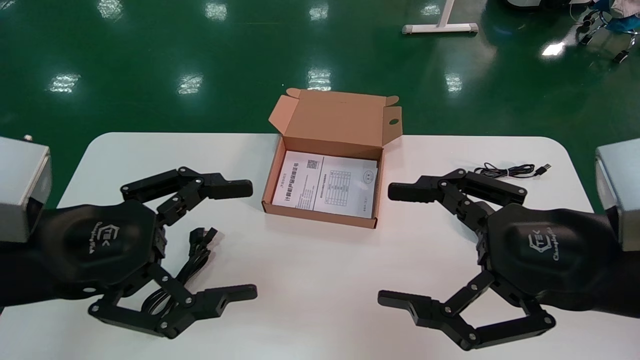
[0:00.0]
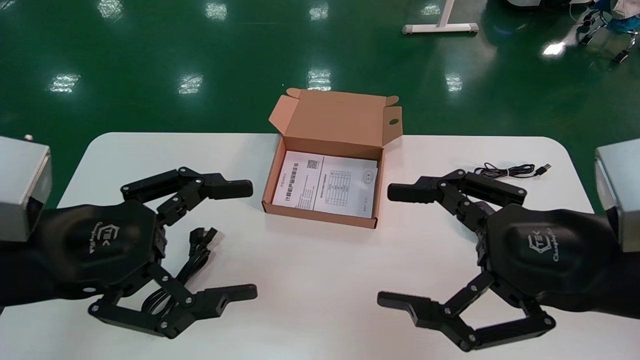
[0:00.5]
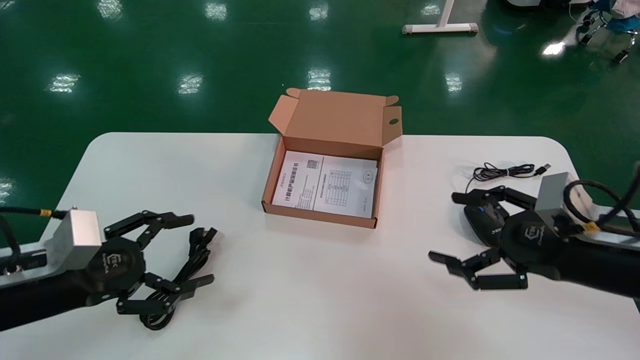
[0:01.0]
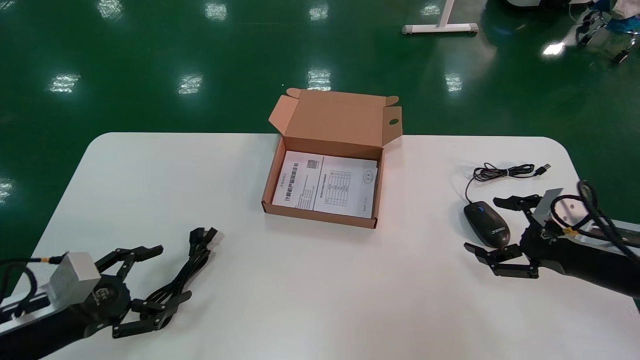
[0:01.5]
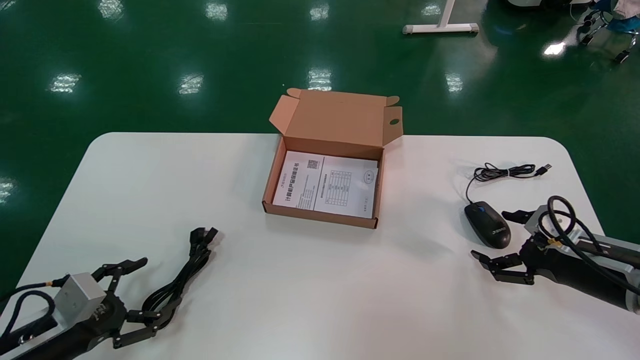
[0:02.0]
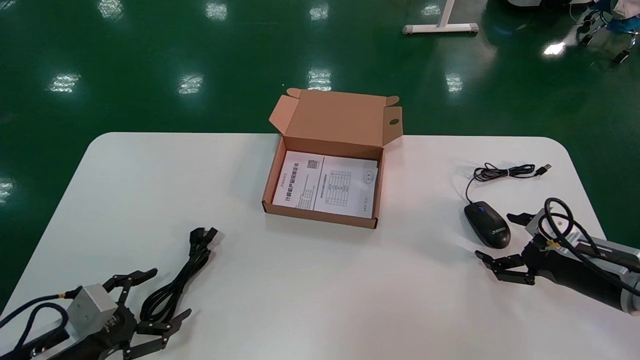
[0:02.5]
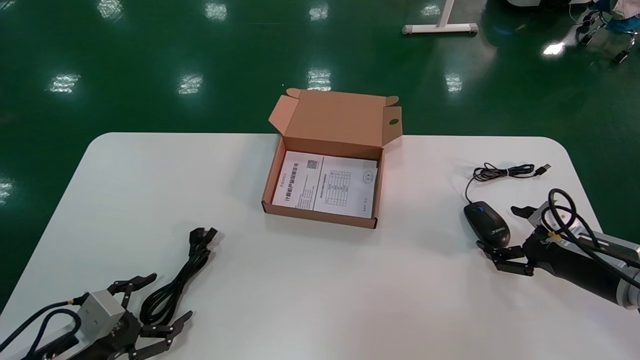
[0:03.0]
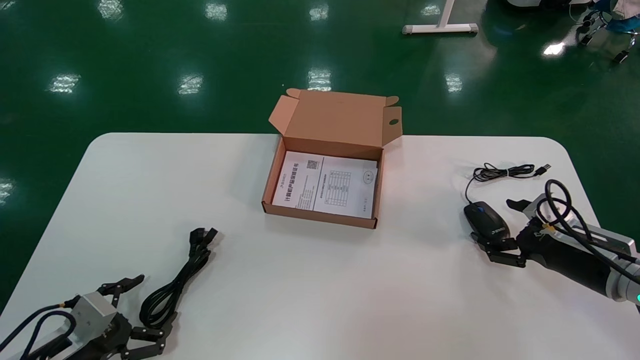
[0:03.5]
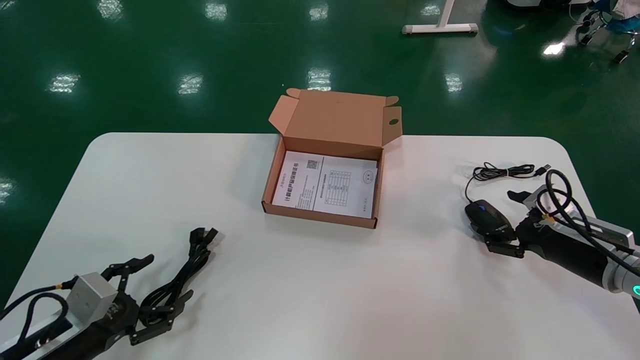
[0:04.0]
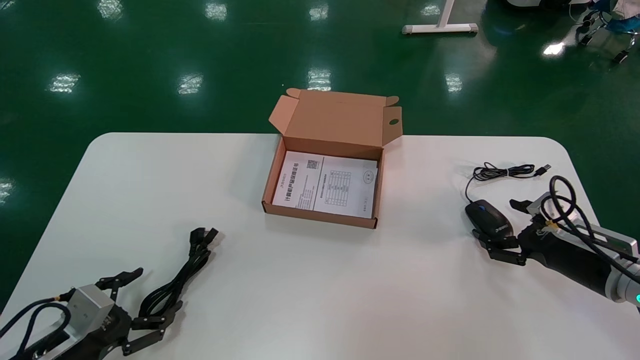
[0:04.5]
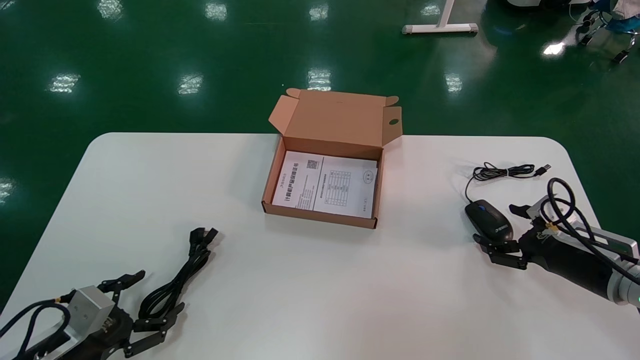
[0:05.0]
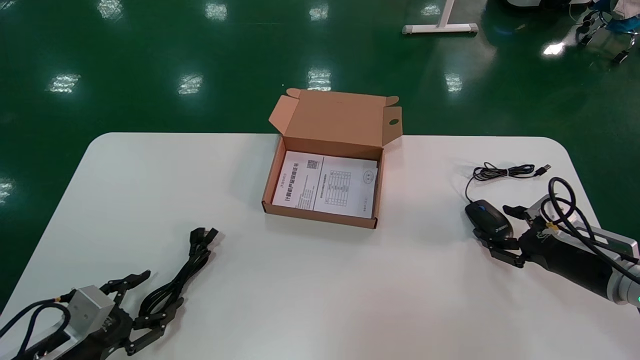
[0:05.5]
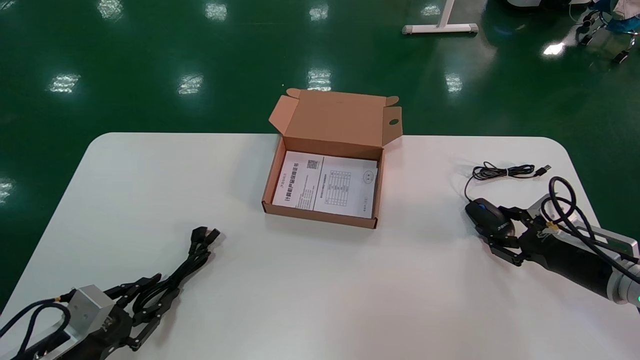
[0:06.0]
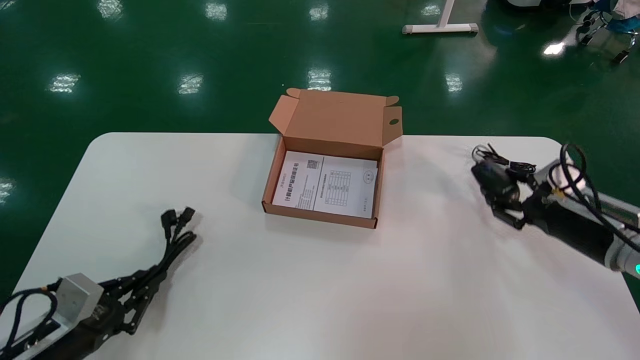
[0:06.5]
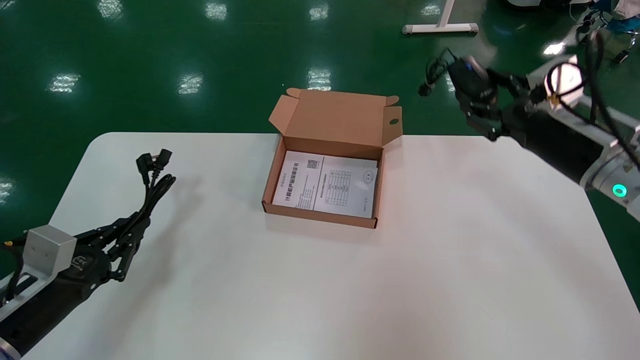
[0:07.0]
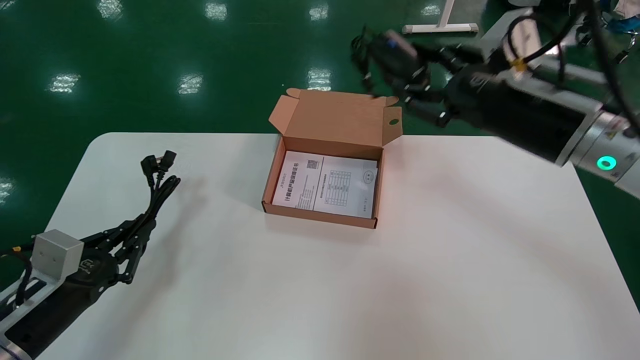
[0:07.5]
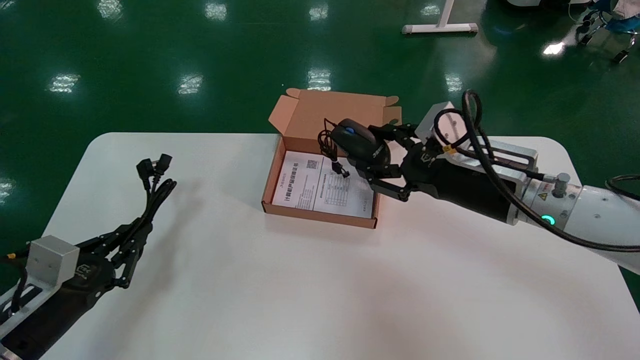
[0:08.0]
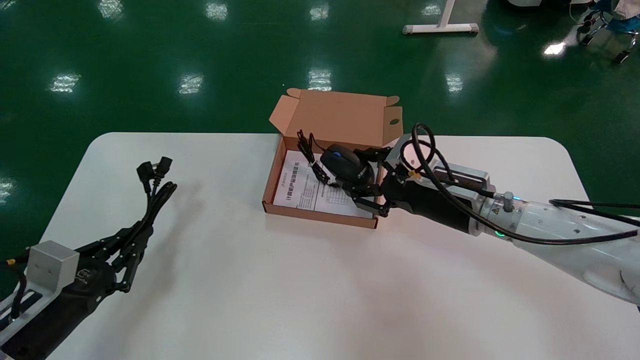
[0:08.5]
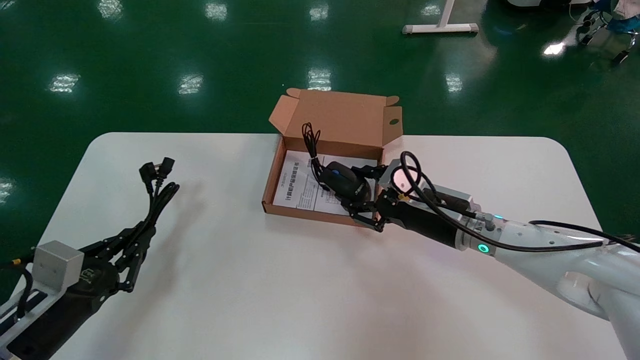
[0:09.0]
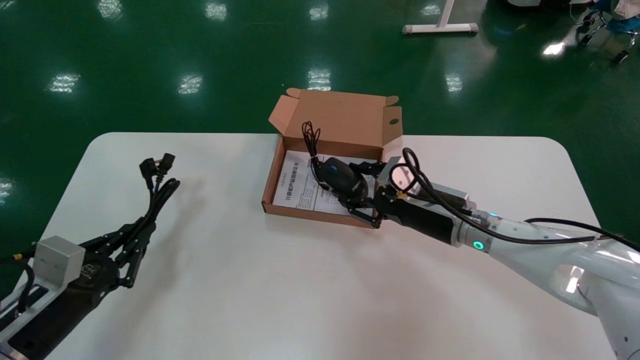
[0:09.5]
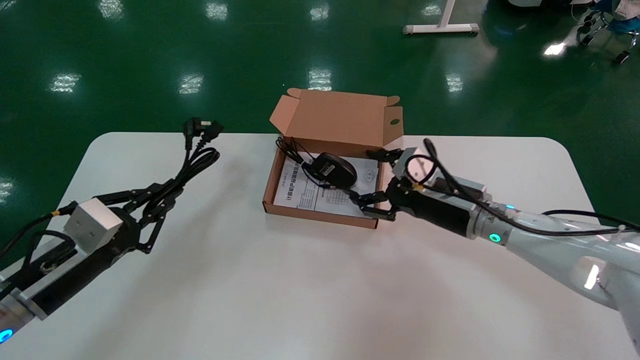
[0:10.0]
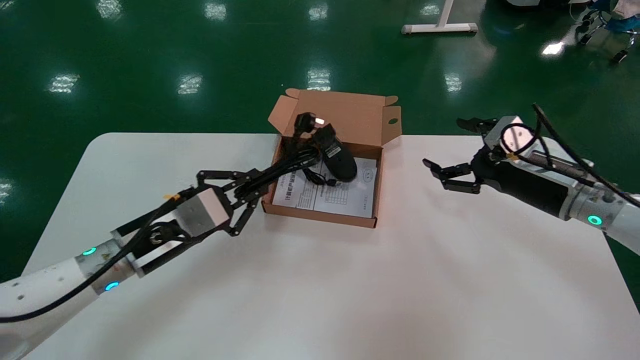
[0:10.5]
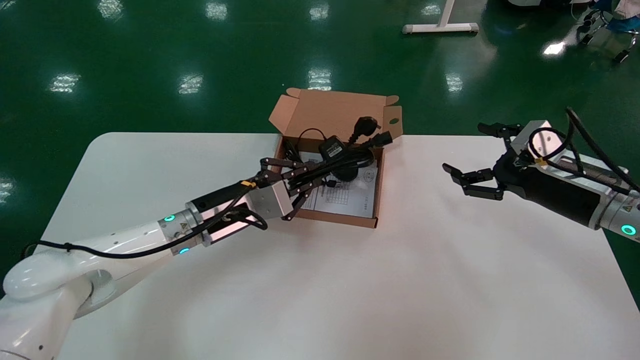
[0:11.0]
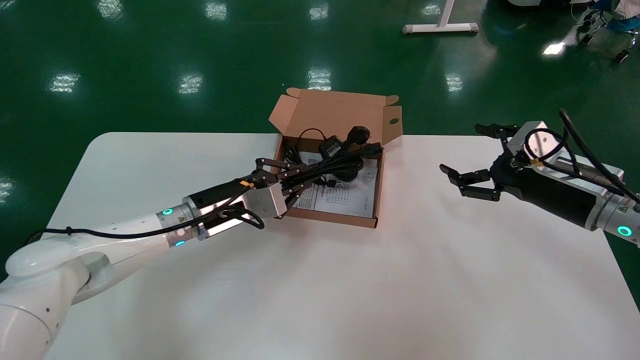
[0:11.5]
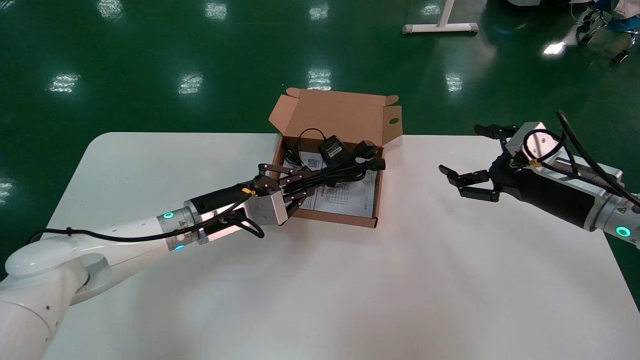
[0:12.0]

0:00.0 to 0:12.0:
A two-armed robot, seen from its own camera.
Step, 0:00.5 to 0:06.5: Grab and pick up the mouse and power cord from the accessory packaging area.
0:00.0 to 0:02.0: The left gripper moves downward and to the left, about 25 cm. Meanwhile the right gripper shifts approximately 25 cm forward, downward and to the right.
0:02.0 to 0:04.0: The grippers stay close to where they were, moving slightly.
0:04.0 to 0:06.0: The right gripper closes up; the left gripper closes up.
0:06.0 to 0:08.0: The right gripper moves to the left and upward, some 25 cm, while the left gripper moves upward, about 5 cm, and closes.
0:08.0 to 0:10.0: The right gripper heads forward and downward, covering approximately 10 cm, and opens; the left gripper is displaced upward by approximately 5 cm.
0:10.0 to 0:12.0: The right gripper travels to the right by roughly 15 cm, and opens, while the left gripper shifts about 20 cm to the right and forward.

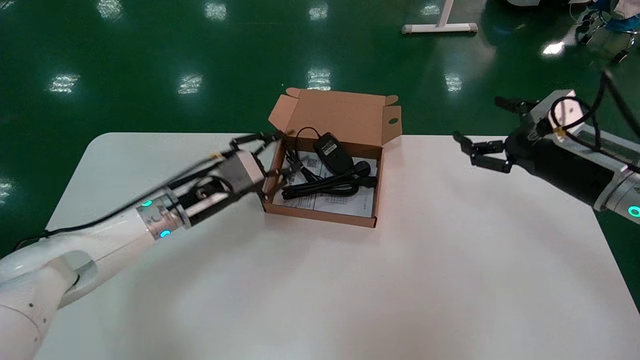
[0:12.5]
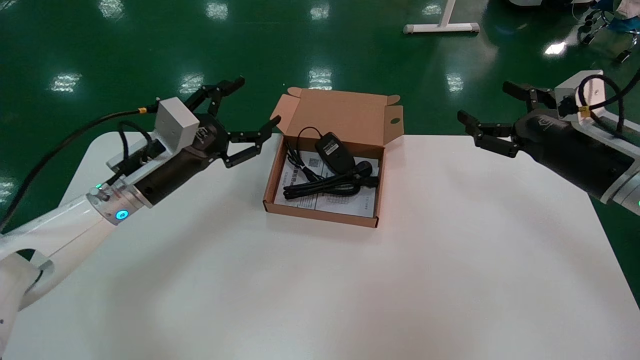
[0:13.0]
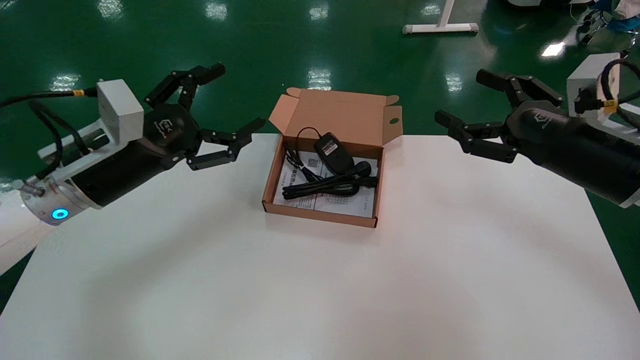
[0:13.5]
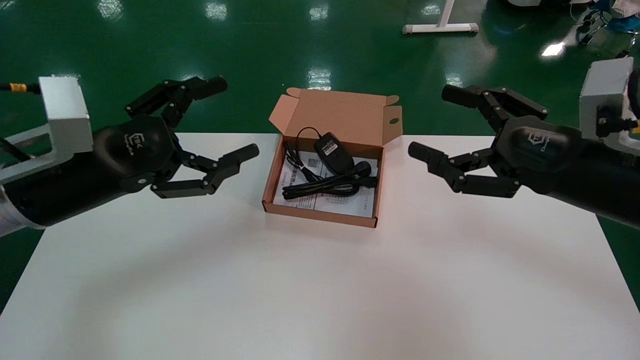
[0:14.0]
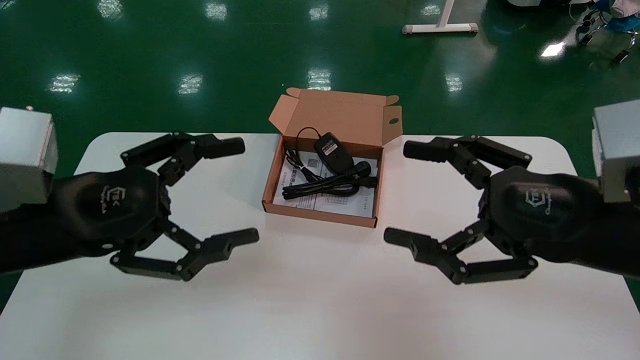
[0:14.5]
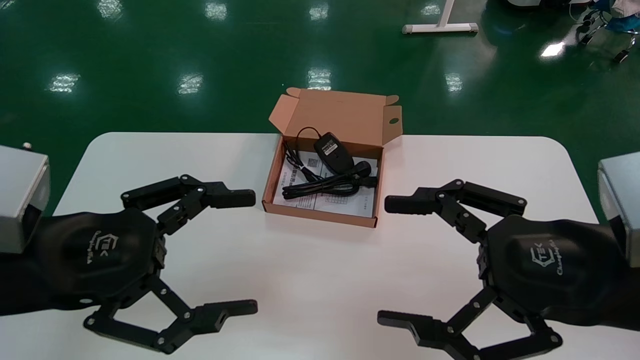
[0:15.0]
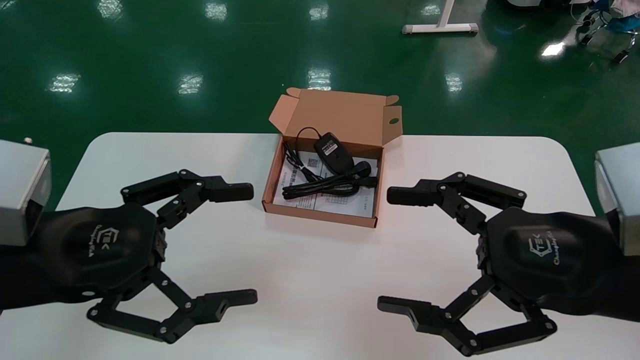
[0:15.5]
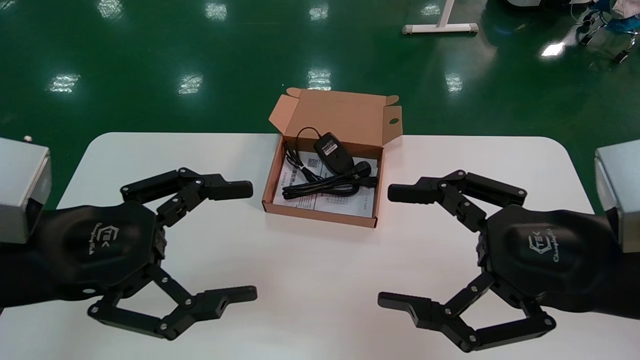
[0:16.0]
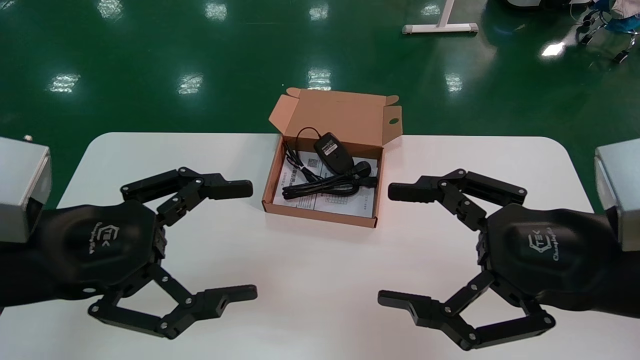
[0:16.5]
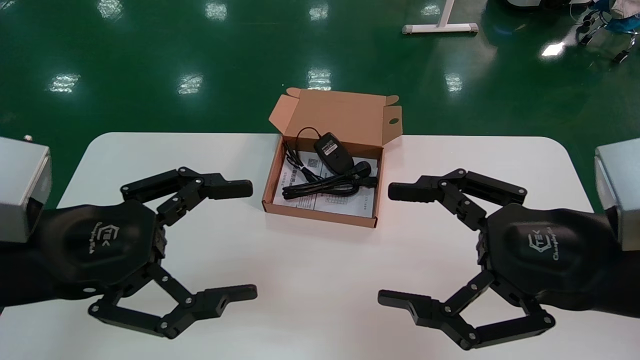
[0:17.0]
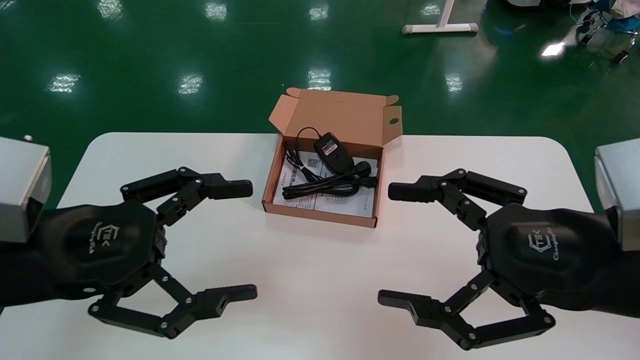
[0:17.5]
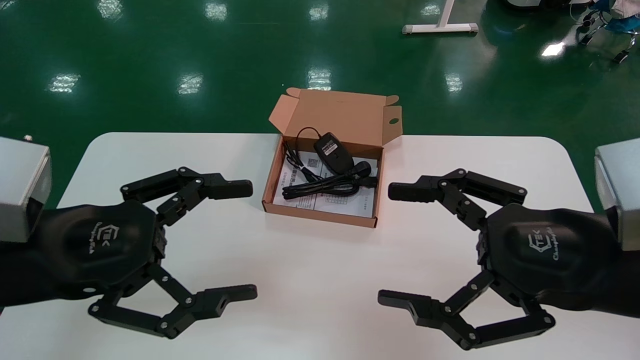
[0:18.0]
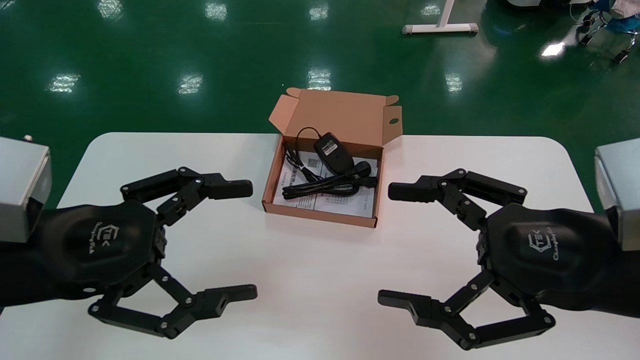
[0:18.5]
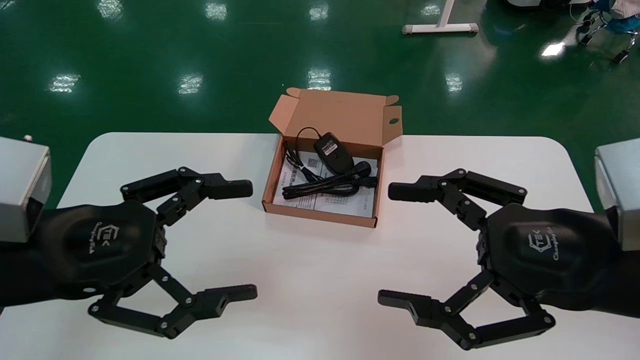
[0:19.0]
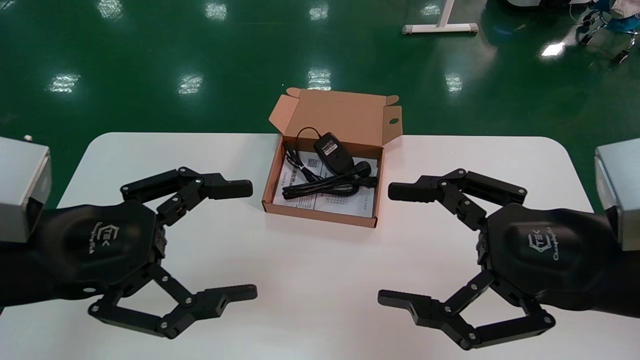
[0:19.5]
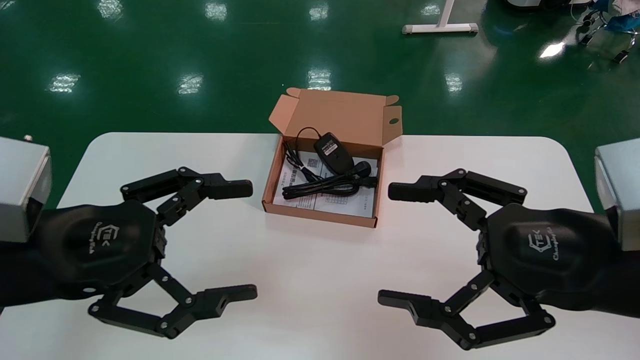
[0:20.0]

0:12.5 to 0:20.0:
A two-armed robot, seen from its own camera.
Step, 0:12.5 to 0:20.0: Place the mouse and power cord into the box.
0:12.5 to 0:14.5: The right gripper shifts some 20 cm backward and to the left, while the left gripper goes roughly 20 cm backward, and opens its fingers.
0:16.5 to 0:20.0: Neither gripper changes place.
